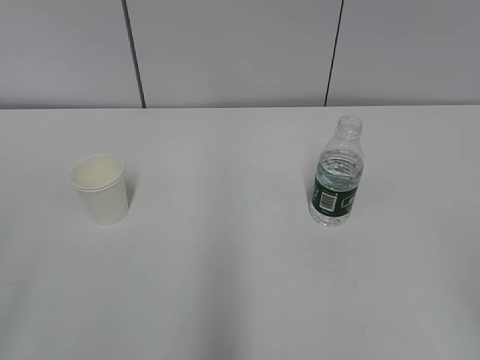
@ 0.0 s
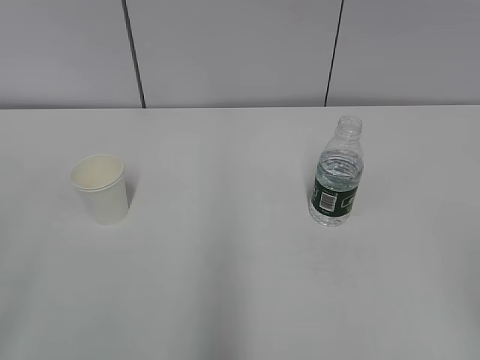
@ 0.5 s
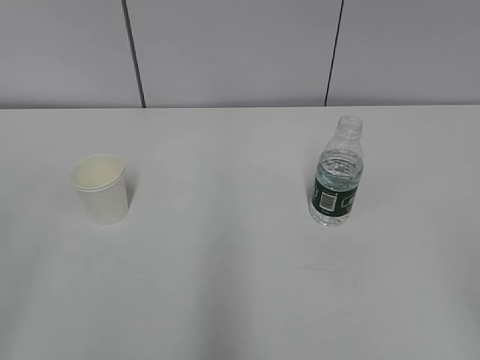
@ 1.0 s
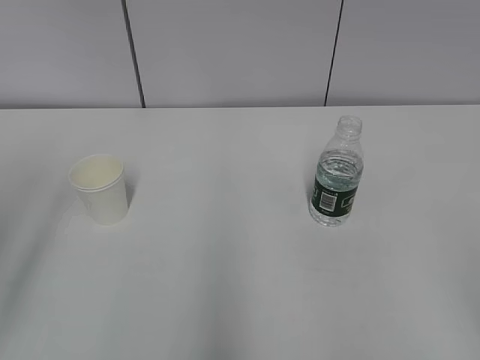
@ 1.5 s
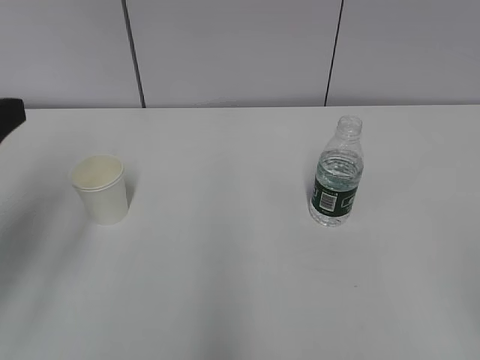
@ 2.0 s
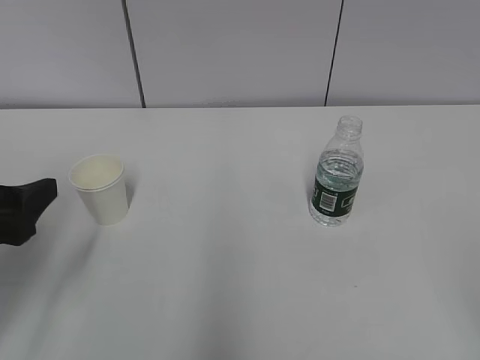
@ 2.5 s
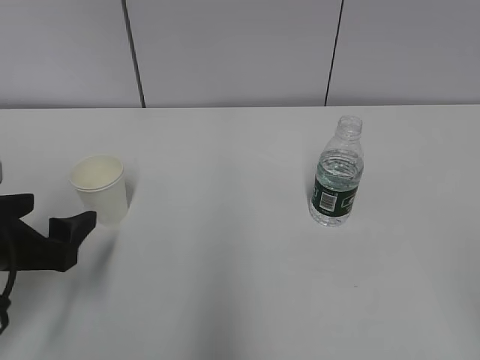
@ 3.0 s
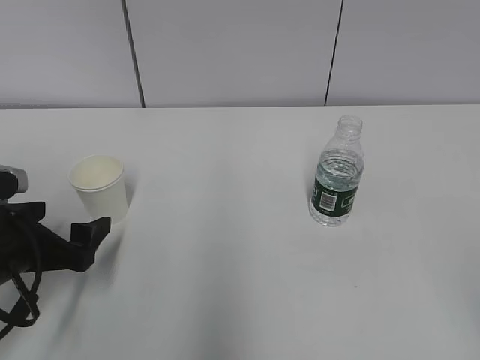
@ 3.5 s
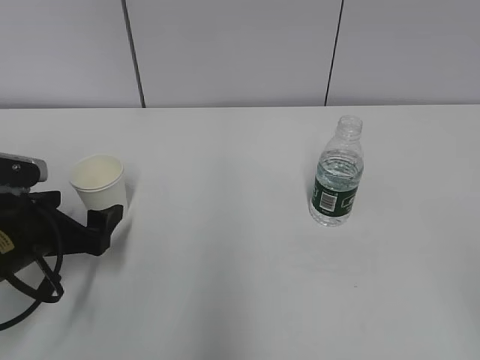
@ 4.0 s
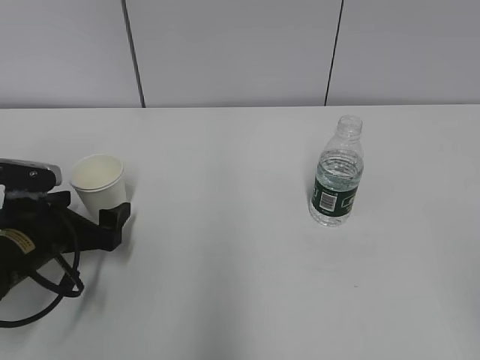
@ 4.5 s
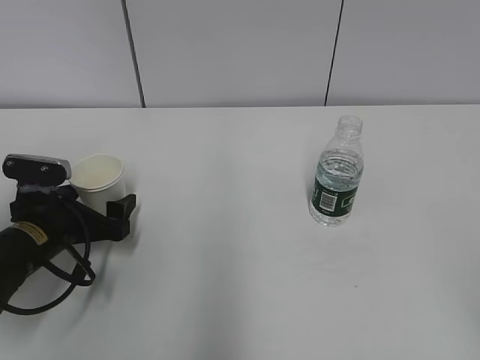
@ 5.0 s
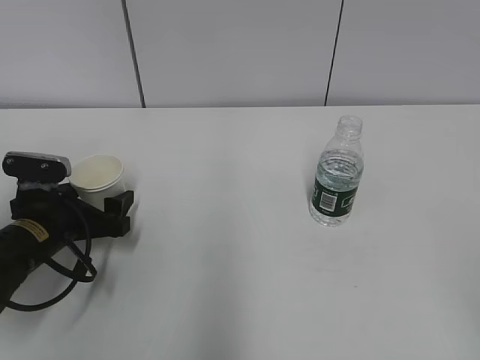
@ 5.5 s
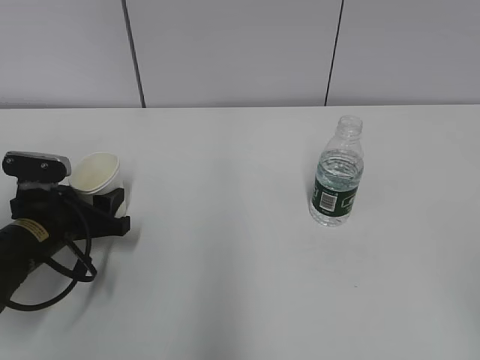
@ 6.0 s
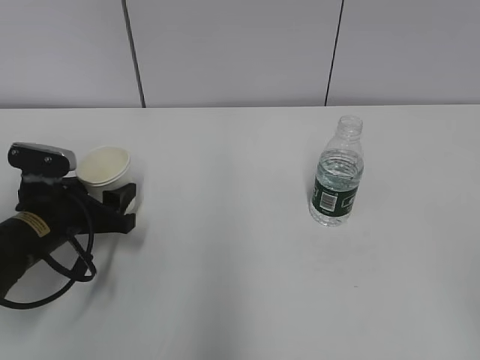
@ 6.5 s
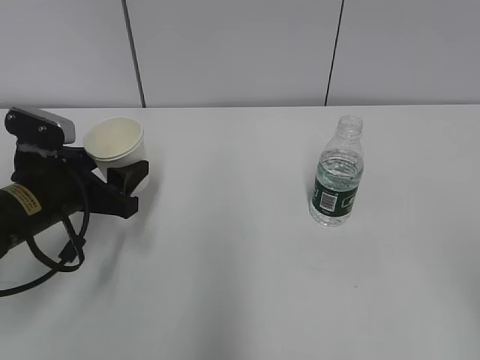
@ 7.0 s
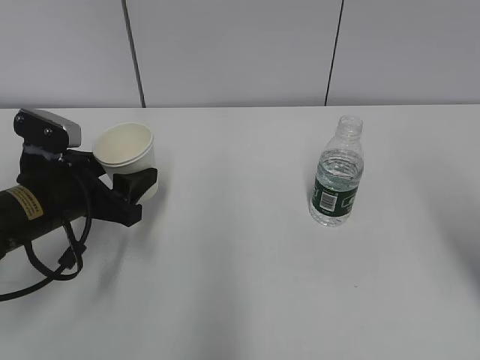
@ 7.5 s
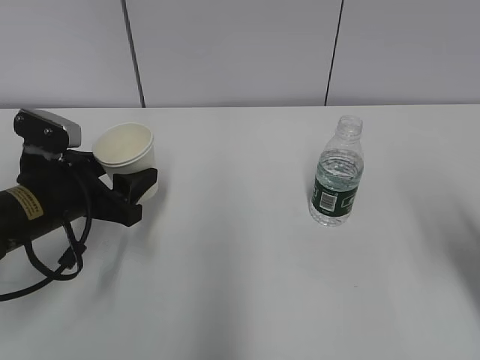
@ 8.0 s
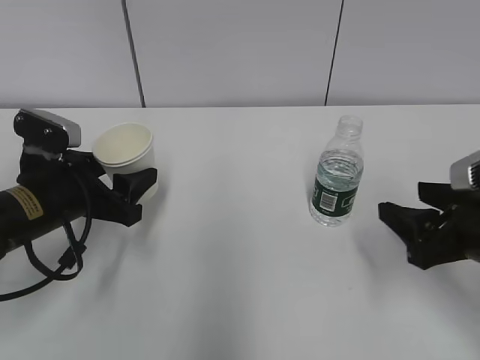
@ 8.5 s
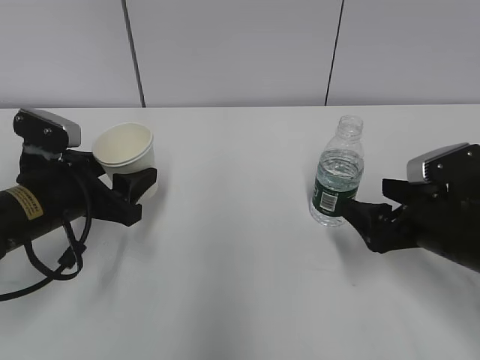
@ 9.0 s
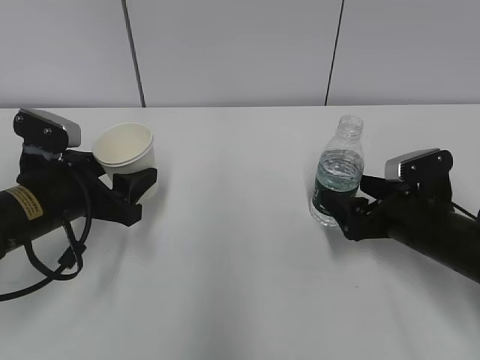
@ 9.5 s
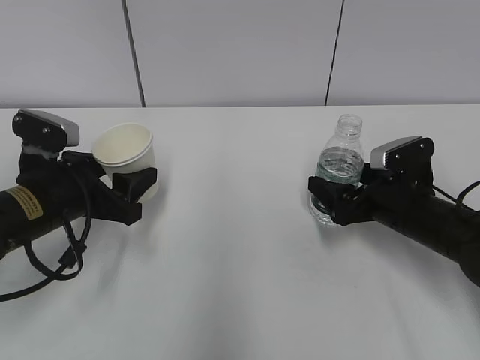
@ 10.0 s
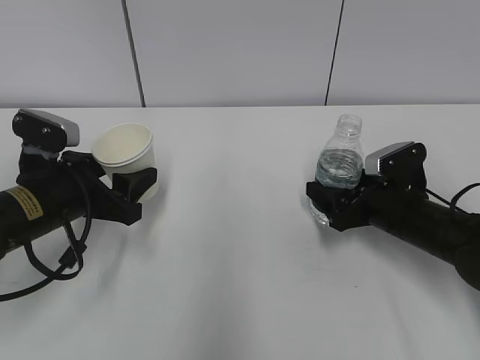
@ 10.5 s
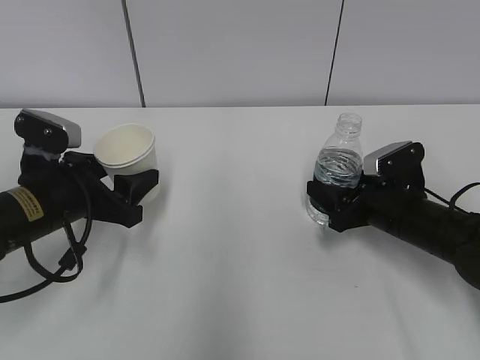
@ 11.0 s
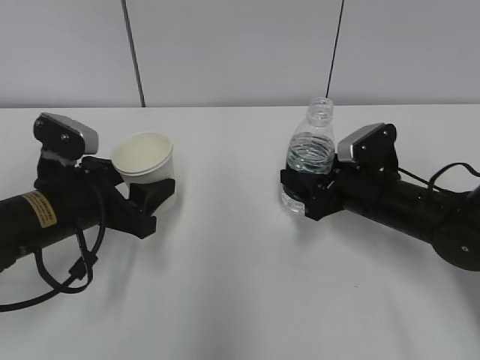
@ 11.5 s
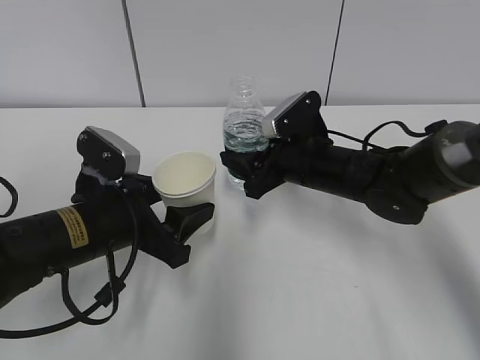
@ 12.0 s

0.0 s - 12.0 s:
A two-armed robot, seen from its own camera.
Step, 0.0 s - 5.0 s: Grab the paper cup with the left hand.
Step, 5.5 s - 9.0 s: Grab the water bottle with the right hand.
2.0 s - 4.0 s: The left gripper heads downward, covering some 15 cm, and opens.
4.0 s - 6.0 s: The left gripper closes its fingers.
6.0 s - 8.0 s: The left gripper moves upward, about 5 cm. Meanwhile the right gripper goes approximately 20 cm forward.
8.0 s - 10.0 s: The right gripper is displaced forward, downward and to the left by roughly 20 cm, and opens up.
10.0 s - 12.0 s: The right gripper heads to the left, covering some 10 cm, and closes. The left gripper moves to the right, about 5 cm.

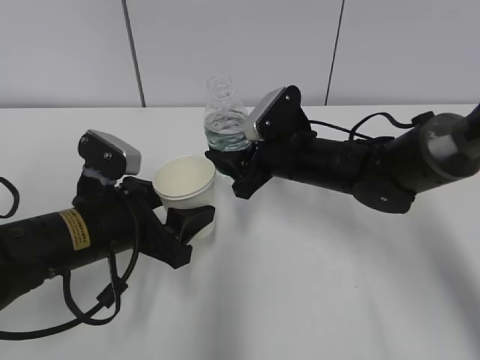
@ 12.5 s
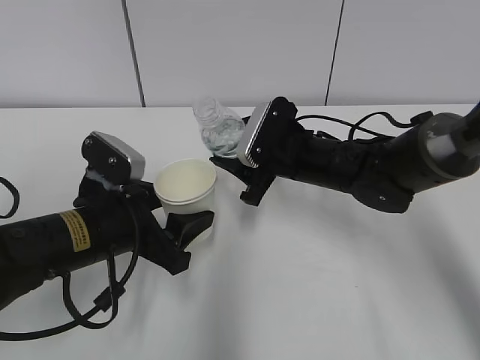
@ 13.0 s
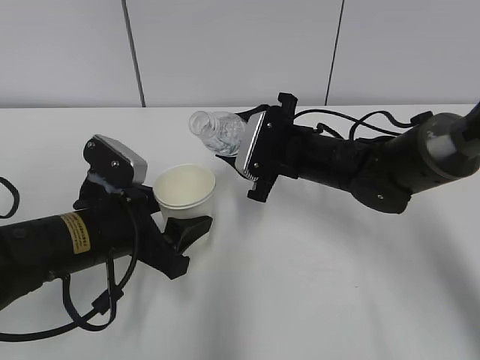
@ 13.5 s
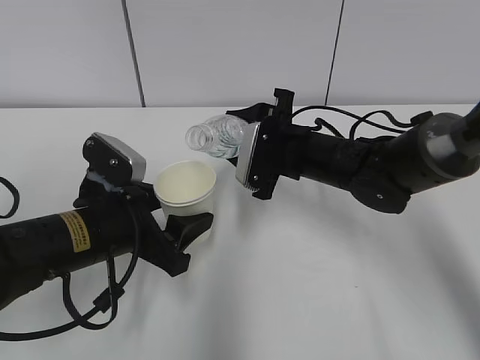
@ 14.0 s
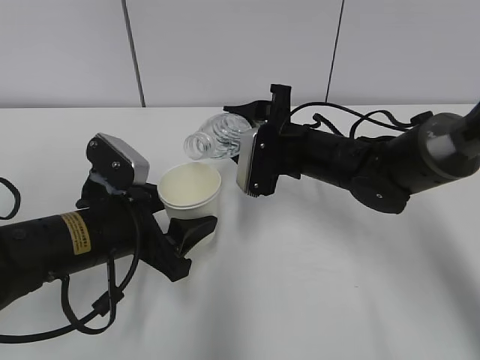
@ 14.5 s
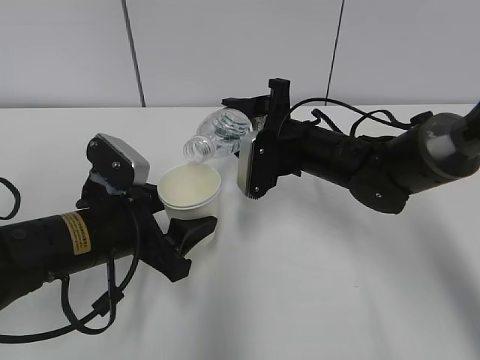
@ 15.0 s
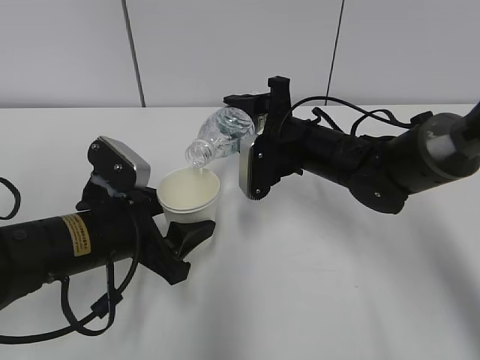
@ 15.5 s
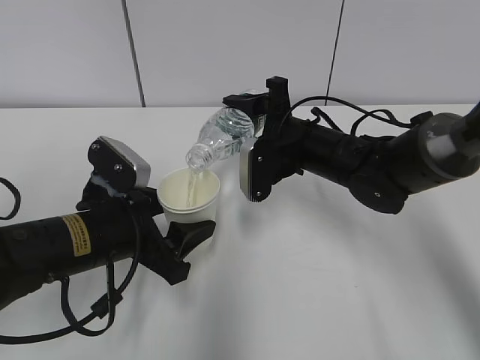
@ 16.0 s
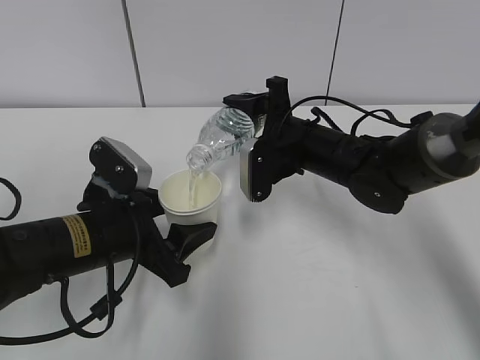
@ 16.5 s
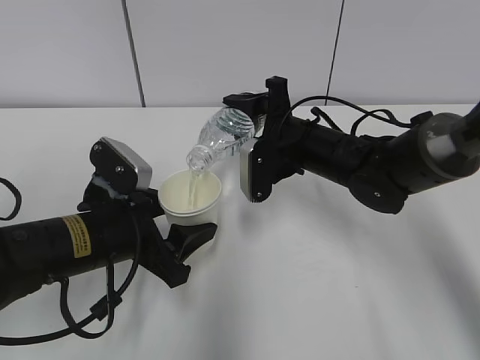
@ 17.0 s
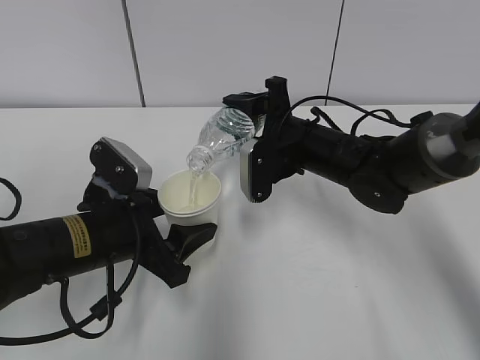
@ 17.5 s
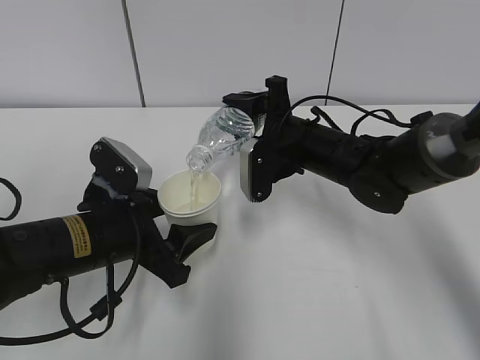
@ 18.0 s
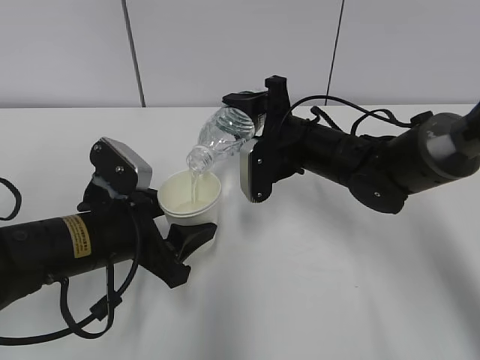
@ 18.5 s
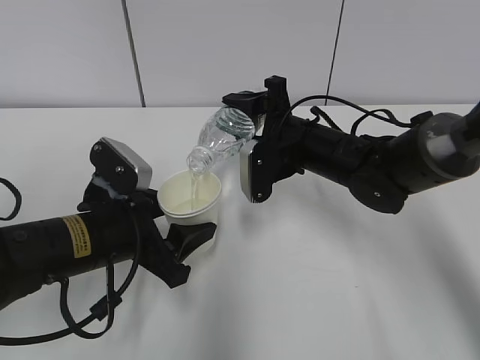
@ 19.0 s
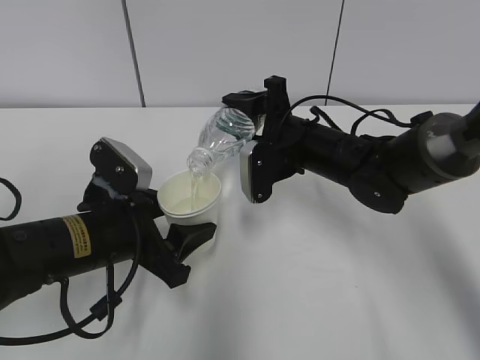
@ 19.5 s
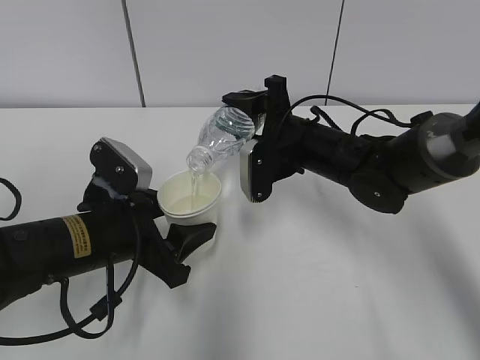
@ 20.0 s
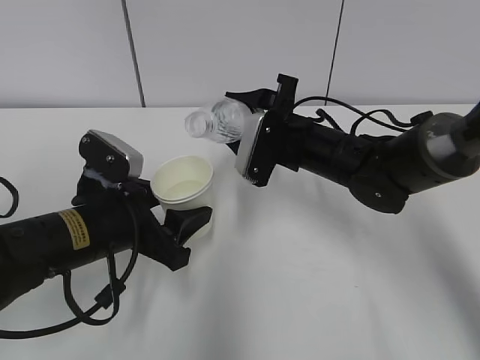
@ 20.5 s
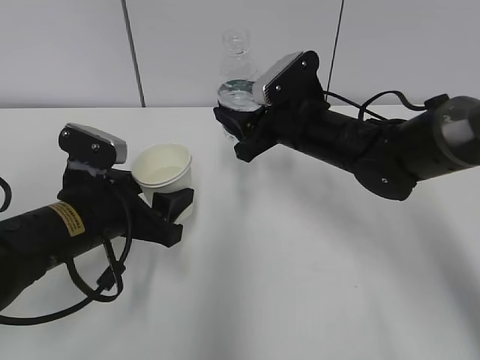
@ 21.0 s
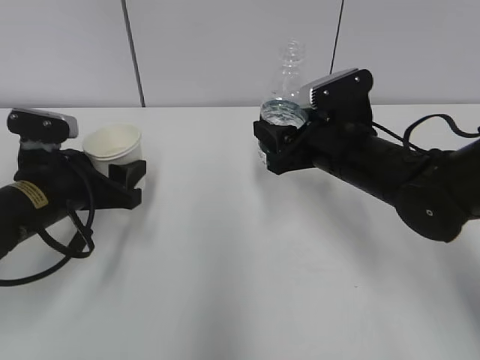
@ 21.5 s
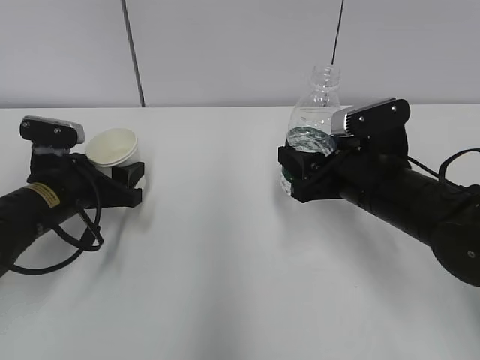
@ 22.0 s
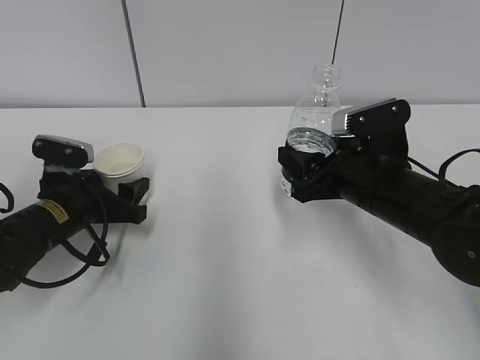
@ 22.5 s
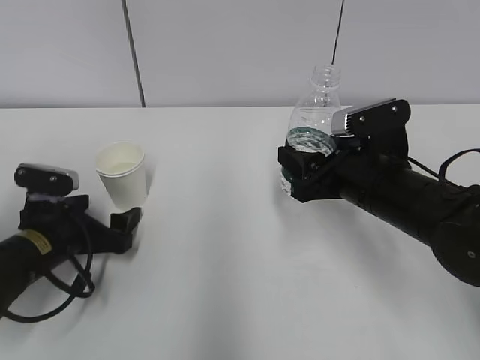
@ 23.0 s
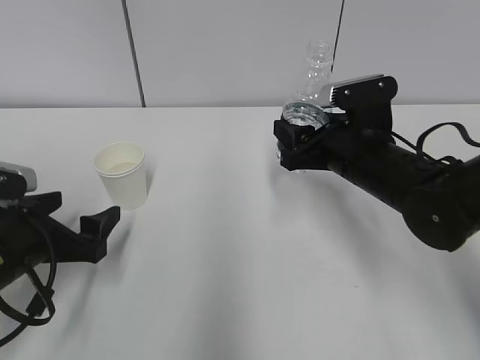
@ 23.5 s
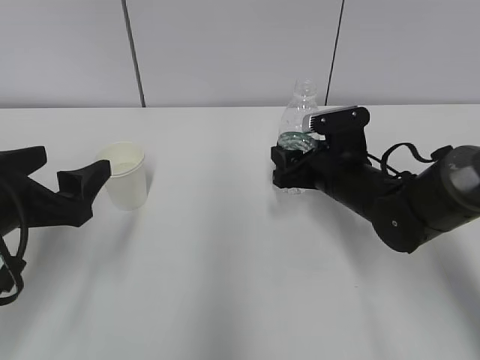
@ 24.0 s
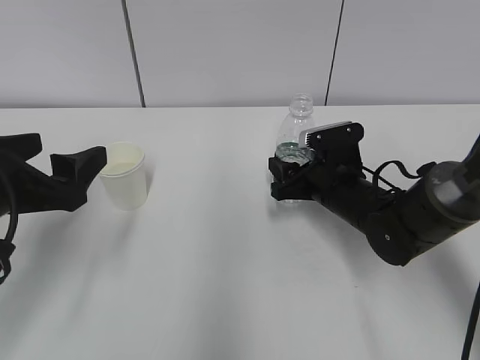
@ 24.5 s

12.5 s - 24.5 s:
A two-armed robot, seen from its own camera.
Step, 13.0 s - 16.5 s: Fill water with the left hand.
Step, 13.0 s - 16.5 s: Pour water with the right hand.
Step, 19.0 s - 20.5 s: Place the water bottle with the right hand.
14.5 s - 16.5 s: The grippers make only small movements.
16.5 s - 18.5 s: The two grippers keep their place.
20.5 s - 22.5 s: The right gripper is displaced backward and to the right by about 10 cm. The left gripper goes about 10 cm forward, to the left and downward.
22.5 s - 24.5 s: The right gripper heads downward and forward, covering about 10 cm. The left gripper goes roughly 15 cm upward and backward, and opens up.

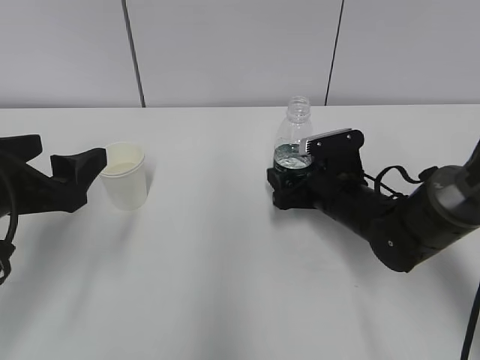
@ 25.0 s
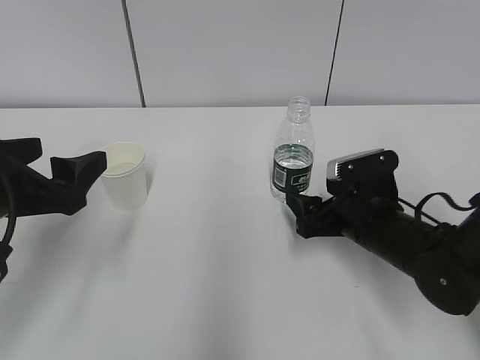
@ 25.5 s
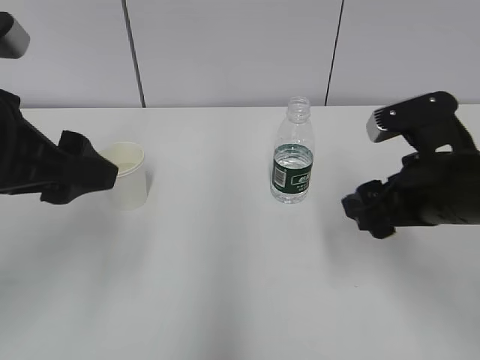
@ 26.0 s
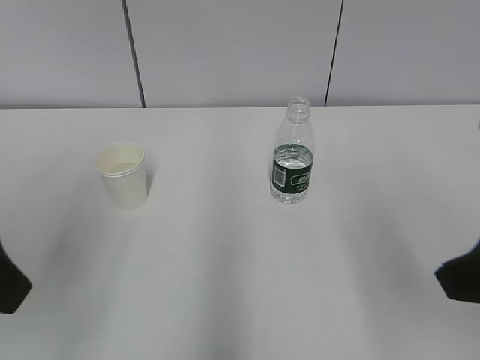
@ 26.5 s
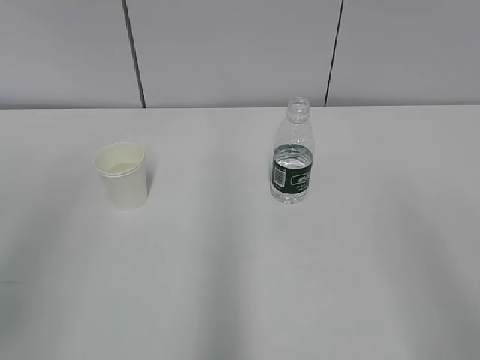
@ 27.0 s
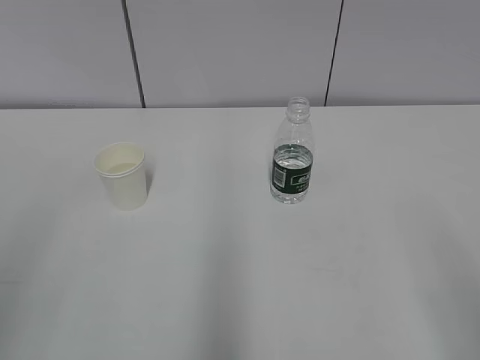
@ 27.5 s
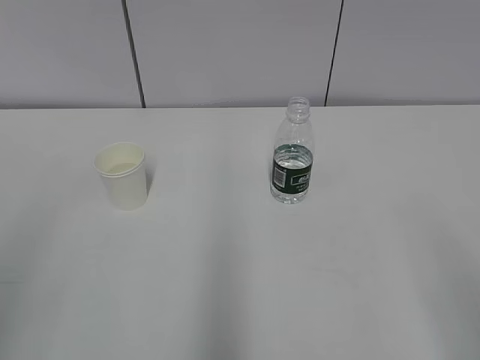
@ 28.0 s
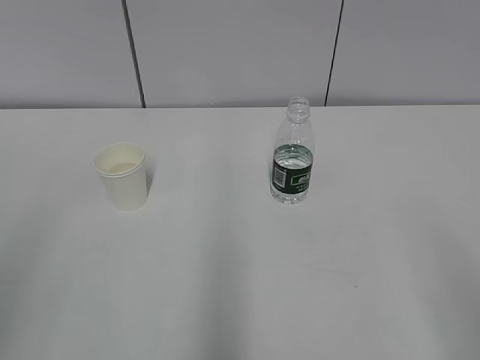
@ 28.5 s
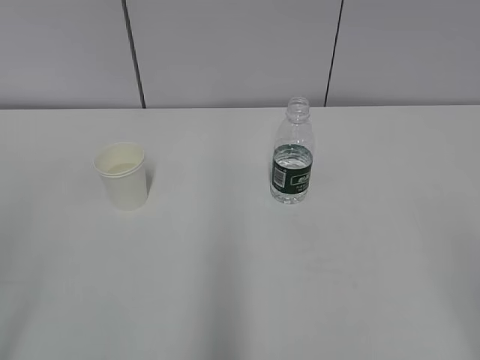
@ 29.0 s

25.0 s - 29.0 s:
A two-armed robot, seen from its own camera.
25.0 s - 27.0 s: The left gripper heads backward and upward, covering some 20 cm; the right gripper heads backward and upward, covering roughly 40 cm.
